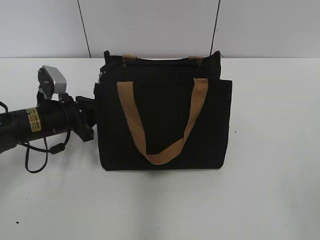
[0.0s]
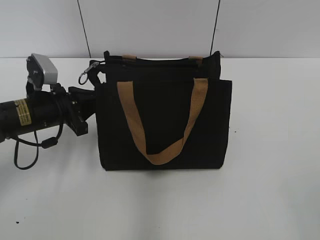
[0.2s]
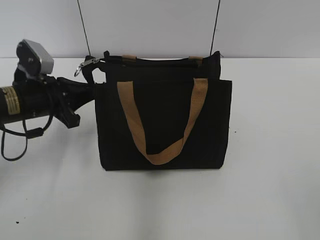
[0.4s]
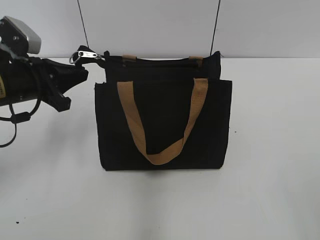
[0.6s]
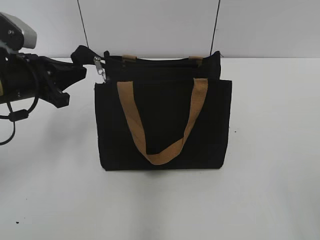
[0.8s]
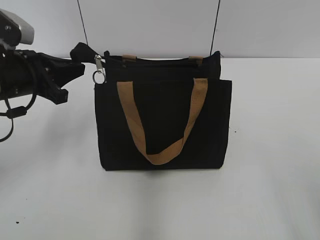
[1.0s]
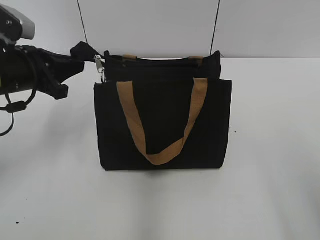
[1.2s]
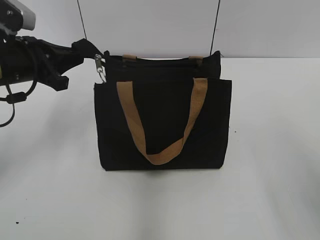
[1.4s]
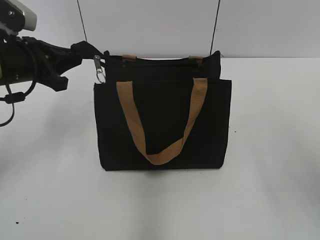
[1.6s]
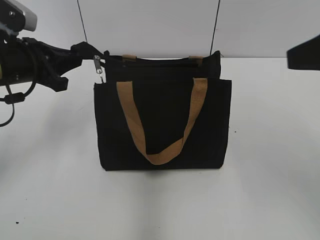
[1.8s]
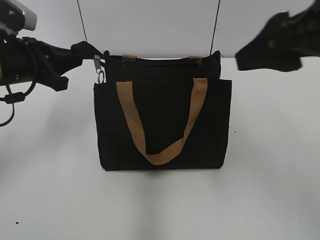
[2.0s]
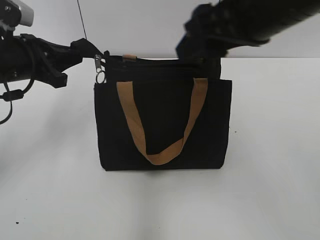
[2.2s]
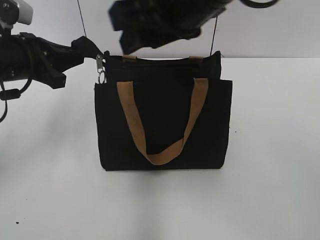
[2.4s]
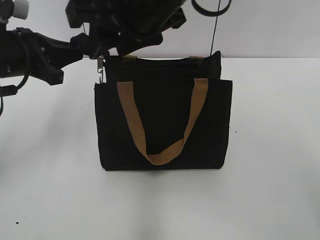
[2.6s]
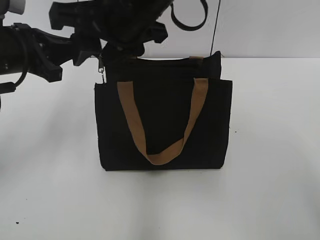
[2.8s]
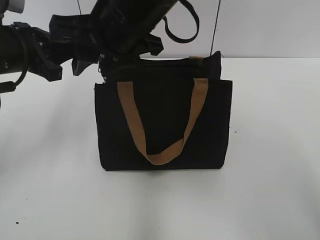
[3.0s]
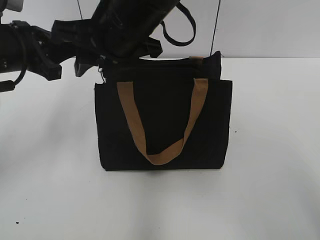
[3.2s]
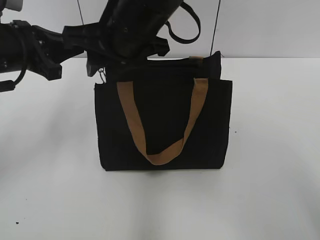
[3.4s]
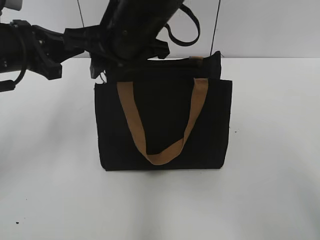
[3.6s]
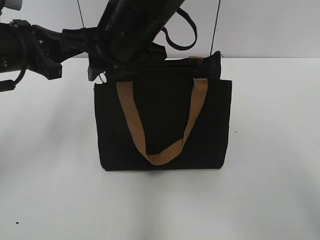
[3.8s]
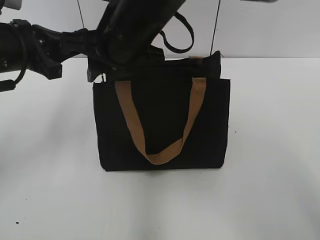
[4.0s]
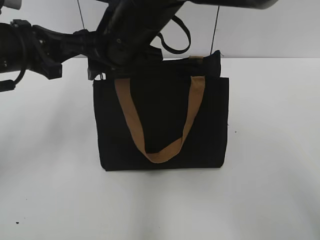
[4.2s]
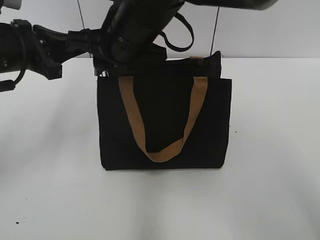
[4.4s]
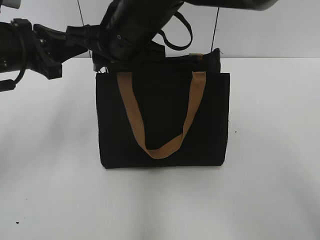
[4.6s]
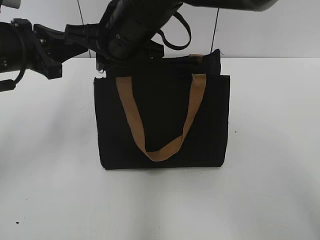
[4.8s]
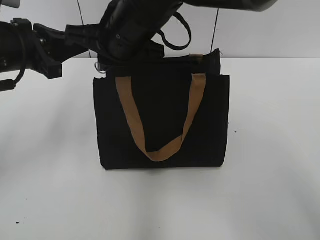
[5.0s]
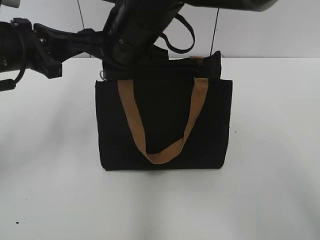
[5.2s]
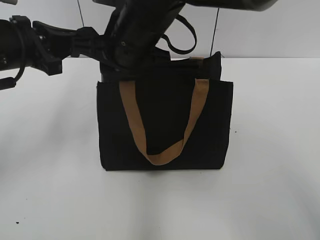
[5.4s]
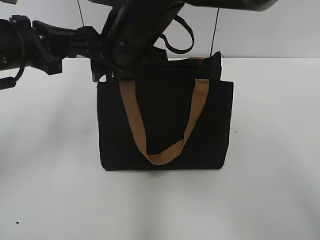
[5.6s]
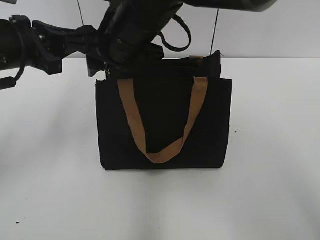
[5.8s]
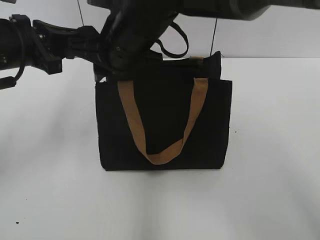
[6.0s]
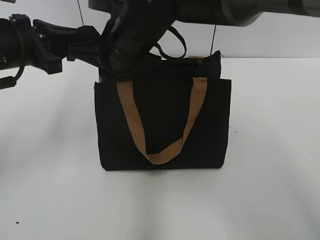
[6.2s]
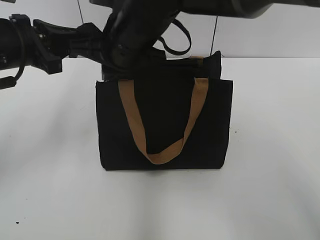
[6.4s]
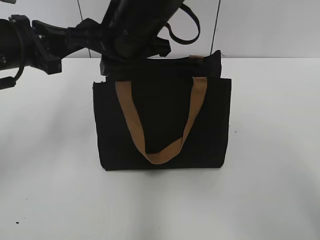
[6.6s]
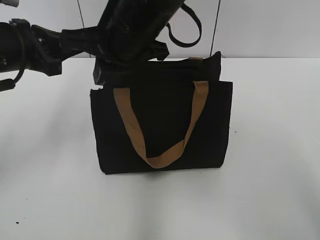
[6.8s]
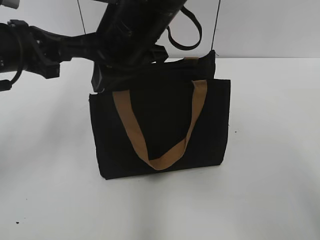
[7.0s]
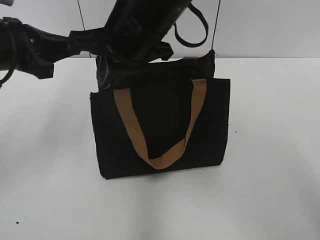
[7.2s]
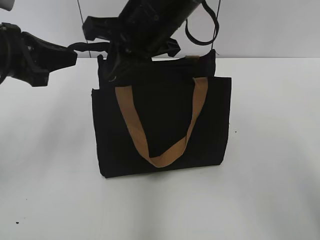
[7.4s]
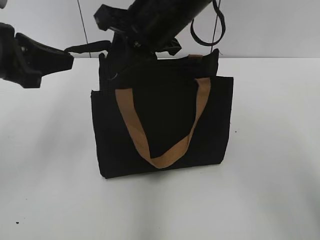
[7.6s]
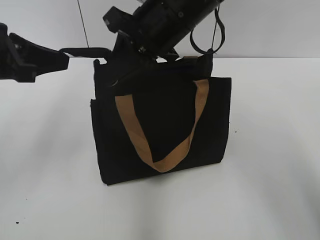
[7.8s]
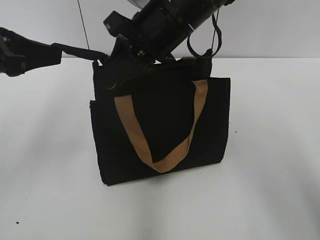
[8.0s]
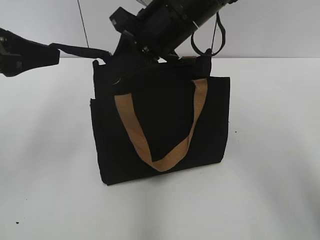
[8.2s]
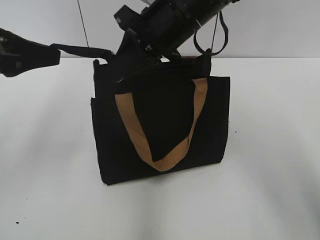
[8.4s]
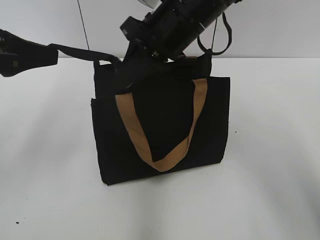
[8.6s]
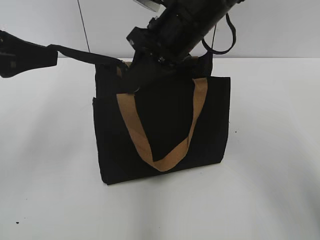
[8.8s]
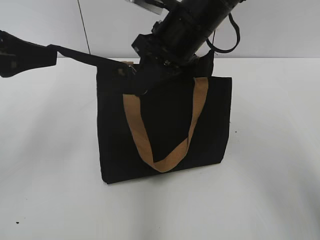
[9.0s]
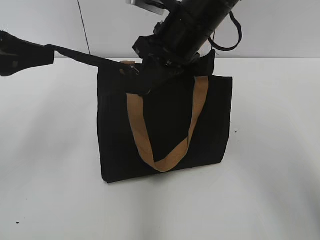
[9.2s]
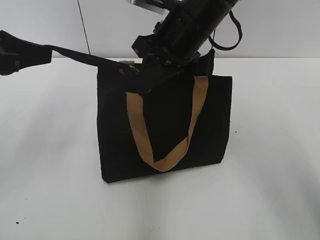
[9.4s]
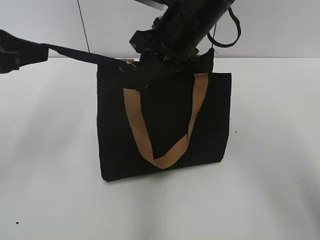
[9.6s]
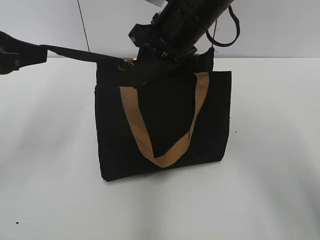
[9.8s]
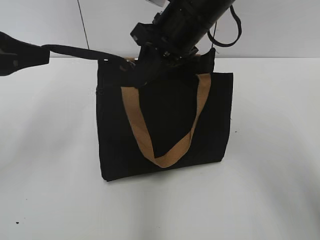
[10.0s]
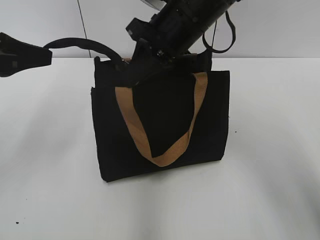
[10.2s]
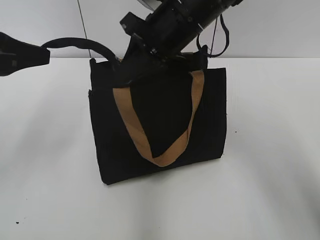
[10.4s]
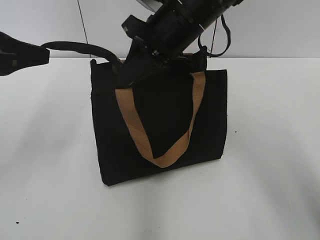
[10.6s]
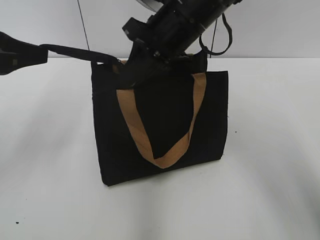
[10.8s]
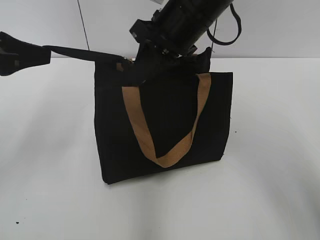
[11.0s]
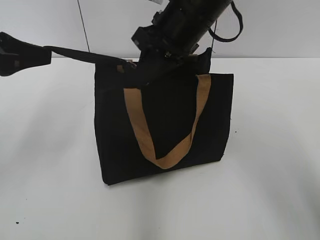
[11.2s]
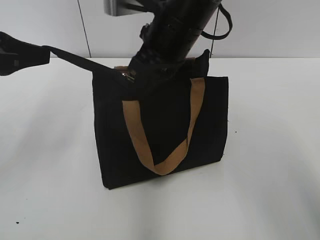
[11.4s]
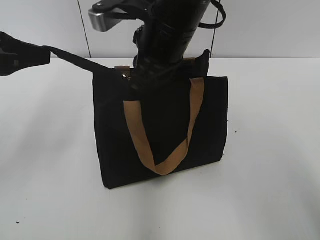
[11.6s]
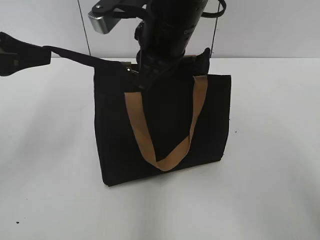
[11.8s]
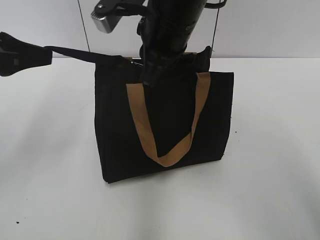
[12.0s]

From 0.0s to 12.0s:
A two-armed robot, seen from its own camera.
From 0.0s to 1.6s: The left gripper goes about 10 cm upward.
From 1.6s to 3.0s: The right gripper shifts some 30 cm to the left and forward.
From 3.0s to 6.0s: The grippers stay close to where they were, moving slightly.
From 6.0s to 7.6s: The right gripper moves to the right and upward, approximately 10 cm.
From 7.6s to 10.4s: The grippers move only a little.

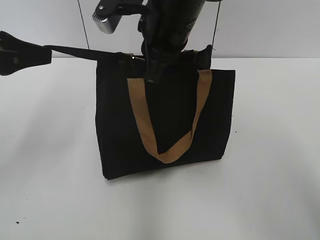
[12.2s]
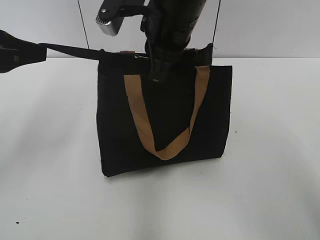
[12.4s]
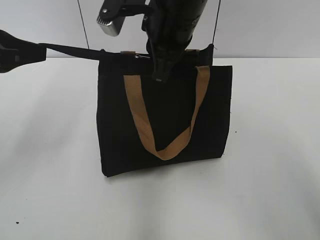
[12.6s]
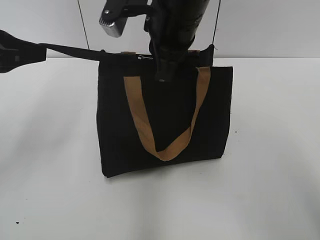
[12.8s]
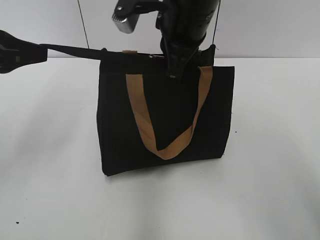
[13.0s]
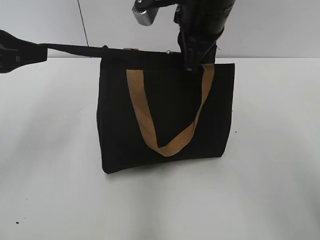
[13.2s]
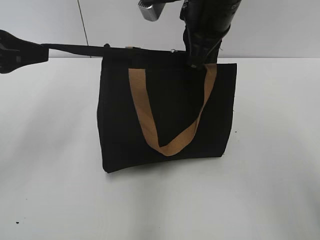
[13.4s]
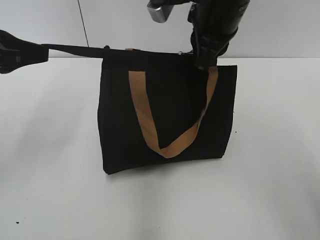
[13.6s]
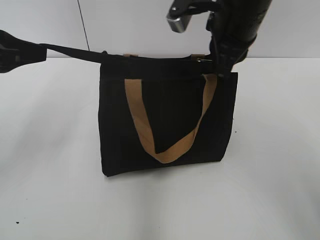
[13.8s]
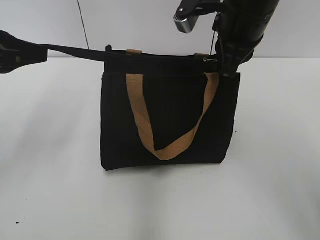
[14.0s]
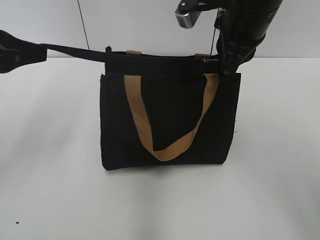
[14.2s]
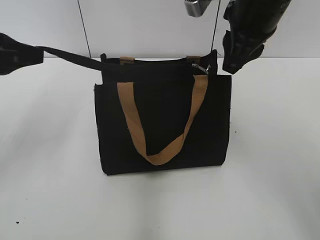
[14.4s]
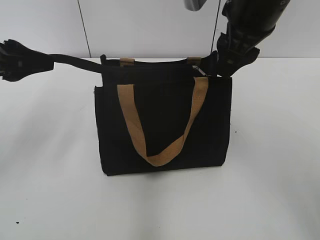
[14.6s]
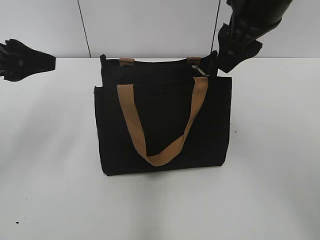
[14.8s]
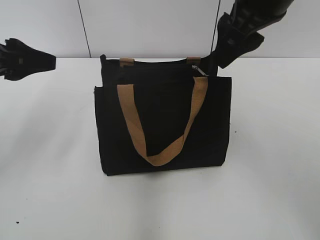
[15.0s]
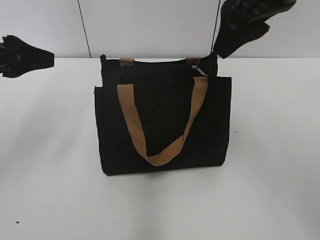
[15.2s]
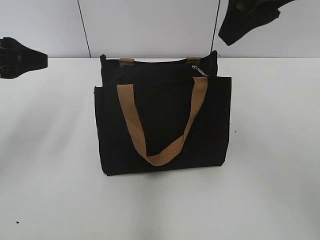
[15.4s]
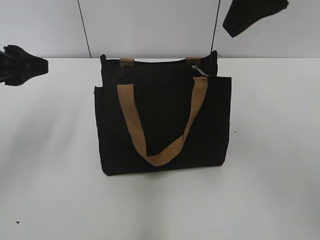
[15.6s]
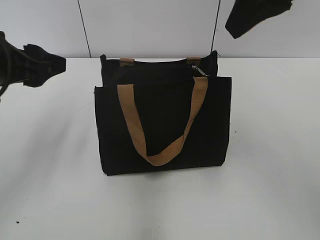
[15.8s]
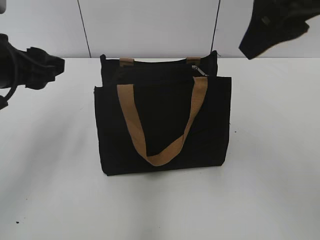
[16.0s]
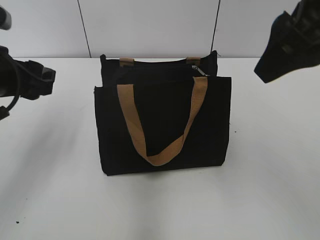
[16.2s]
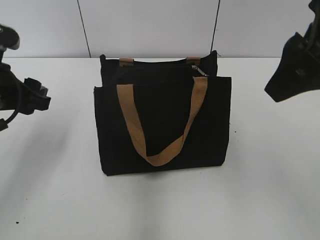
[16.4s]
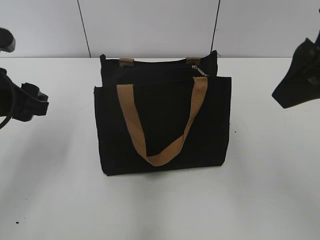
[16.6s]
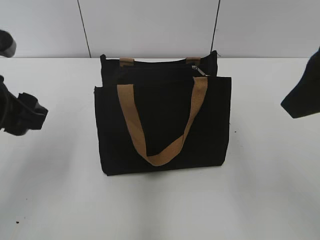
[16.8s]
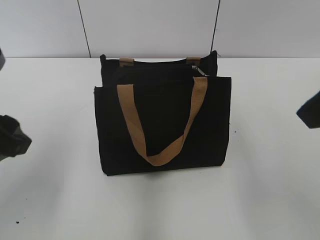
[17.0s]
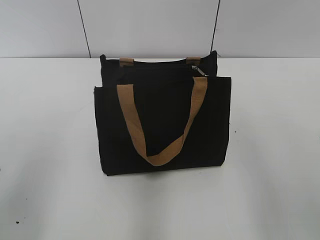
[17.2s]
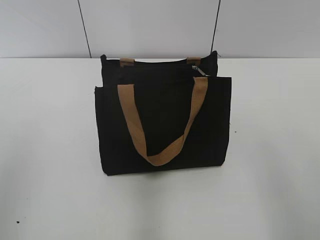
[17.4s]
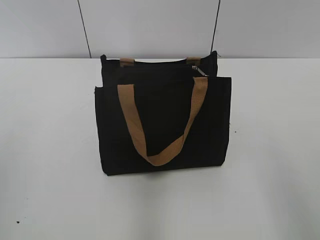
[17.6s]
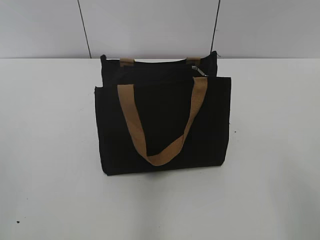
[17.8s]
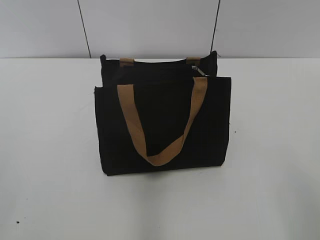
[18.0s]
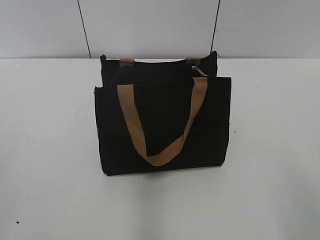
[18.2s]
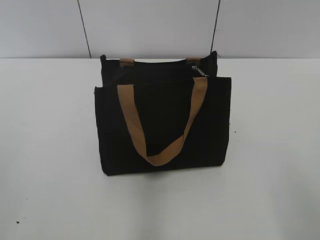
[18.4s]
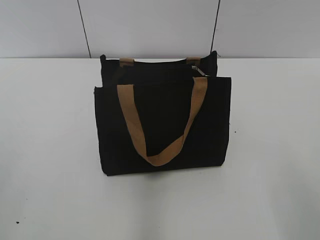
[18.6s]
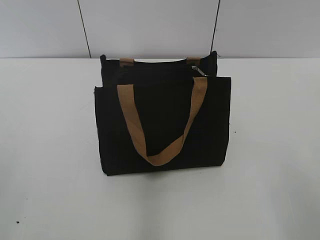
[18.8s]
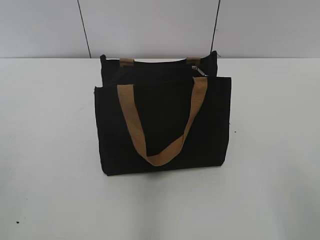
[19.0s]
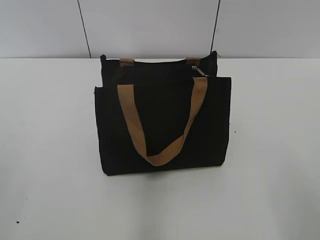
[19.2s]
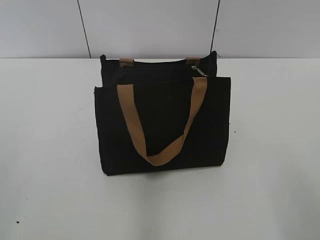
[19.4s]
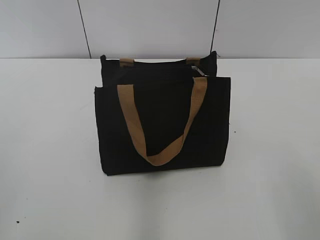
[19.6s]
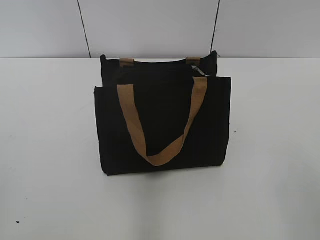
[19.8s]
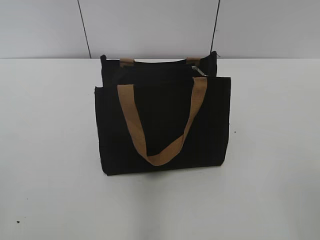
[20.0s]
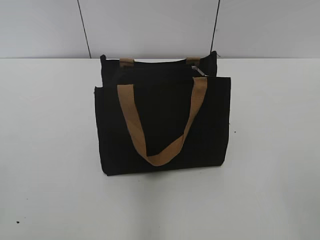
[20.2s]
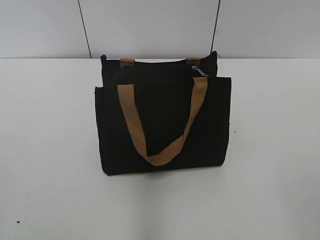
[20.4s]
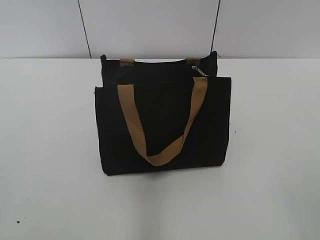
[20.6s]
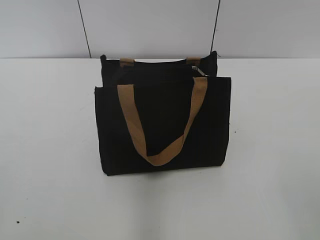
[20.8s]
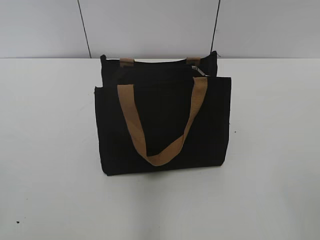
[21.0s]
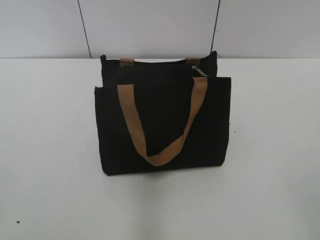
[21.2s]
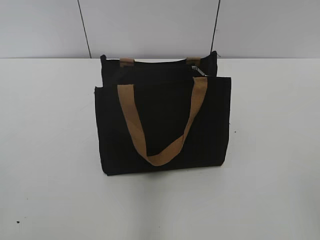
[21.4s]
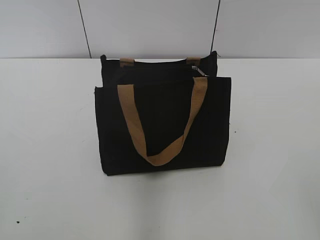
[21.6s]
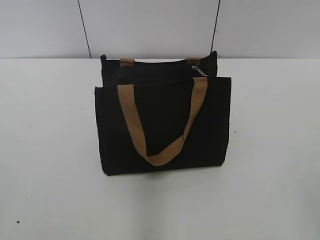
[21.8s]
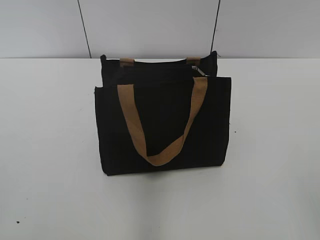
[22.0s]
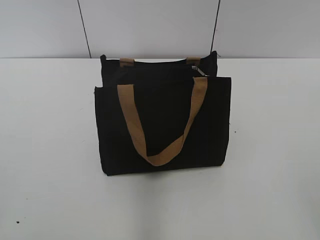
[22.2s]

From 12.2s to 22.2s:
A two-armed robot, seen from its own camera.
Step, from 12.2s to 14.2s: Zip up the bag with your right hand.
Step, from 14.4s to 14.8s: Grab the zipper with your left hand.
From 12.2s to 13.6s: The right gripper travels to the right by approximately 5 cm.
From 13.6s to 15.0s: The right gripper moves approximately 5 cm, and opens its fingers. The left gripper opens its fingers.
From 15.0s to 16.4s: The left gripper goes approximately 5 cm downward. Meanwhile the right gripper is displaced backward by some 10 cm.
From 16.4s to 18.0s: The left gripper goes approximately 25 cm backward. The right gripper travels backward, to the right and downward by approximately 25 cm.
